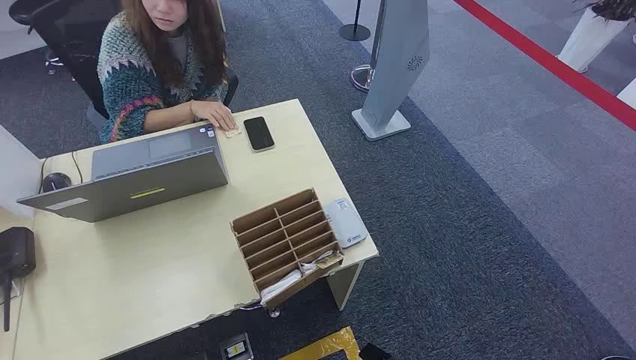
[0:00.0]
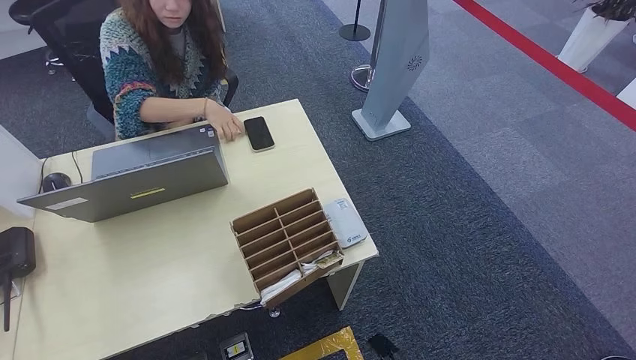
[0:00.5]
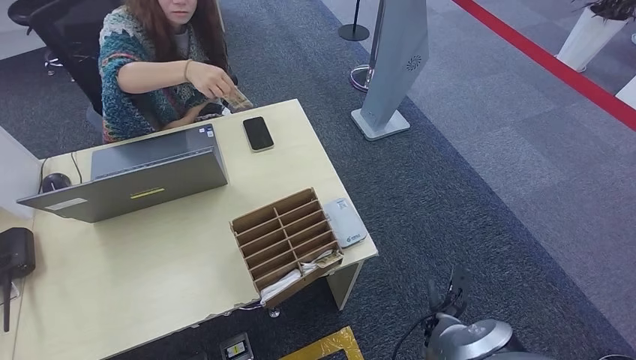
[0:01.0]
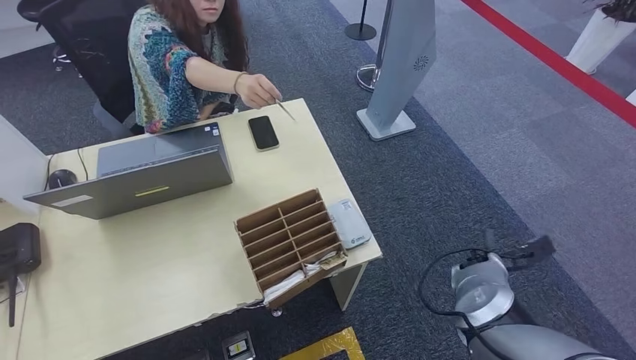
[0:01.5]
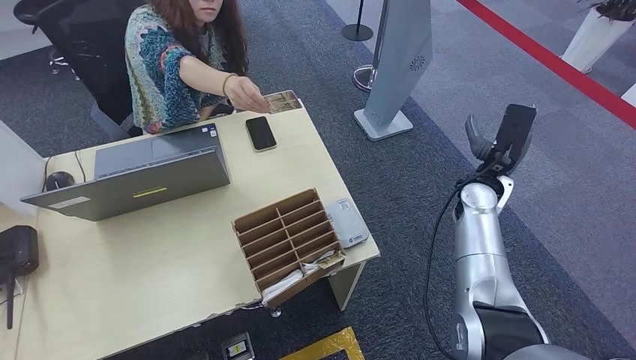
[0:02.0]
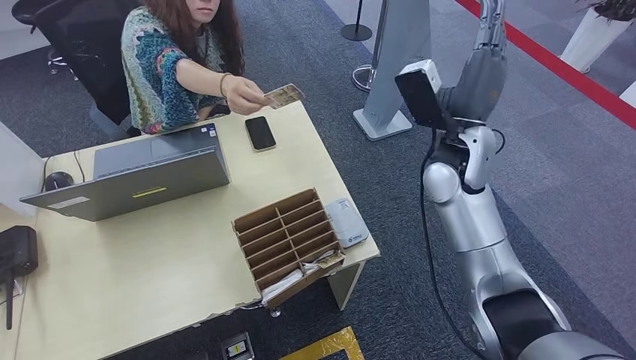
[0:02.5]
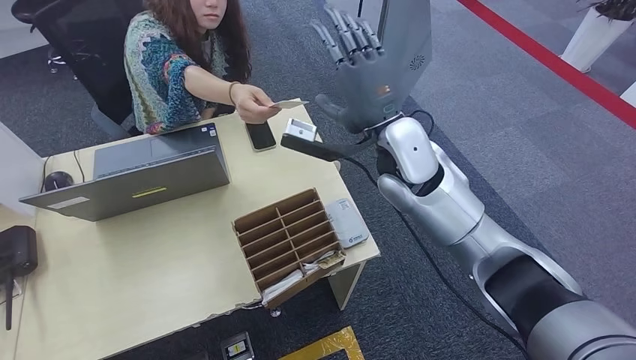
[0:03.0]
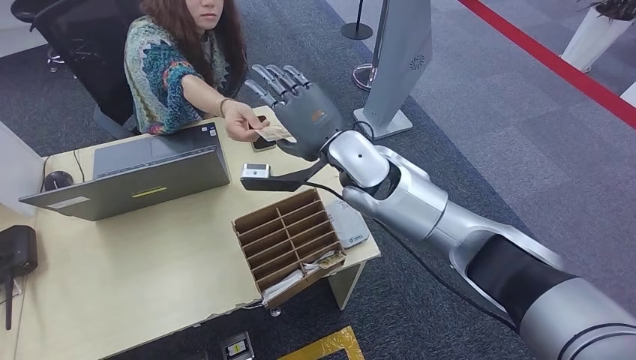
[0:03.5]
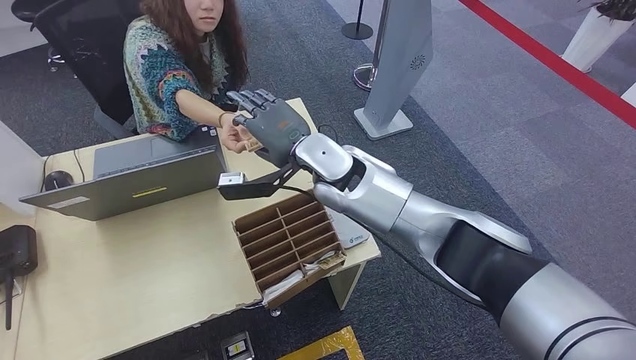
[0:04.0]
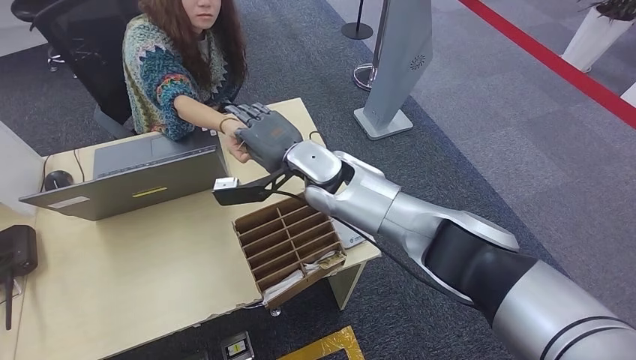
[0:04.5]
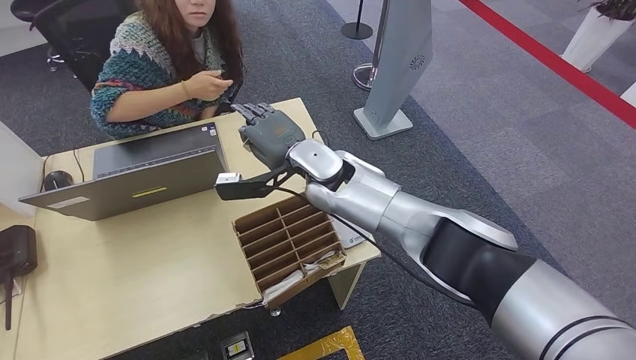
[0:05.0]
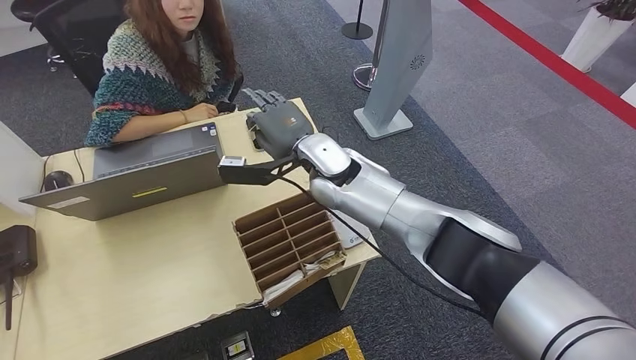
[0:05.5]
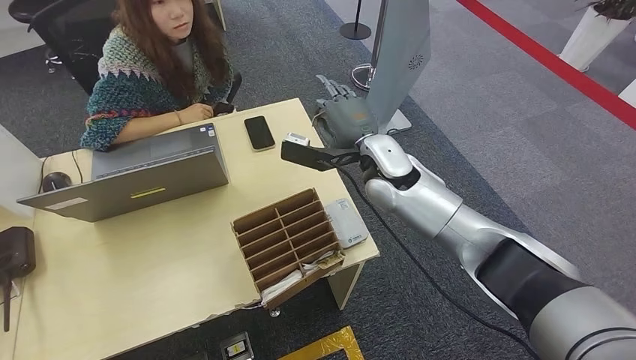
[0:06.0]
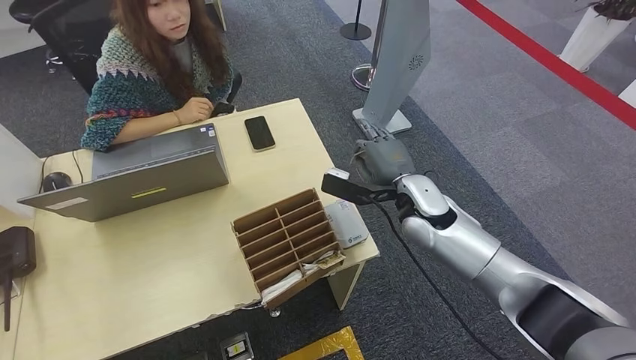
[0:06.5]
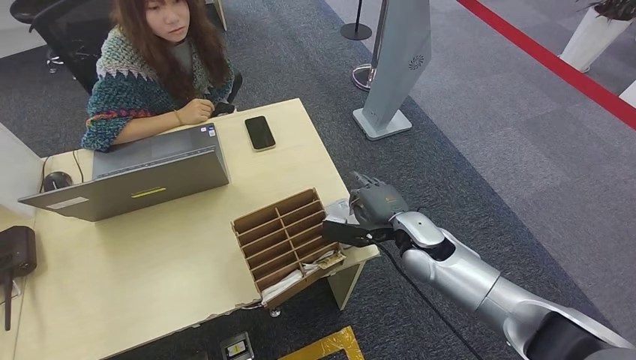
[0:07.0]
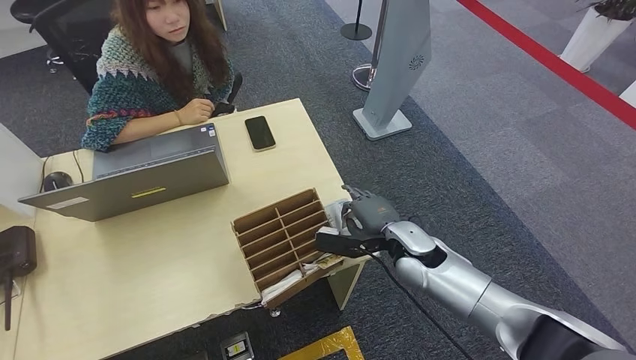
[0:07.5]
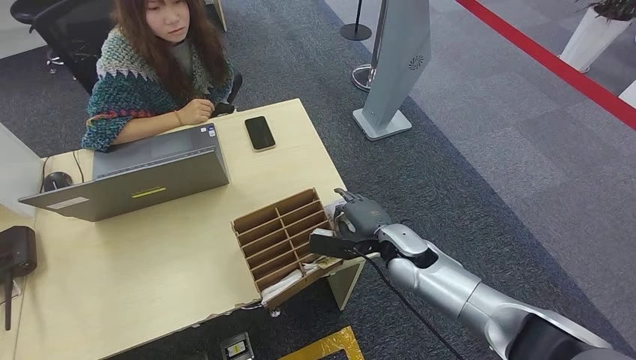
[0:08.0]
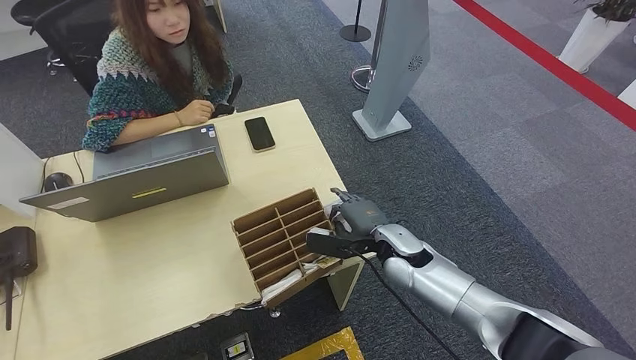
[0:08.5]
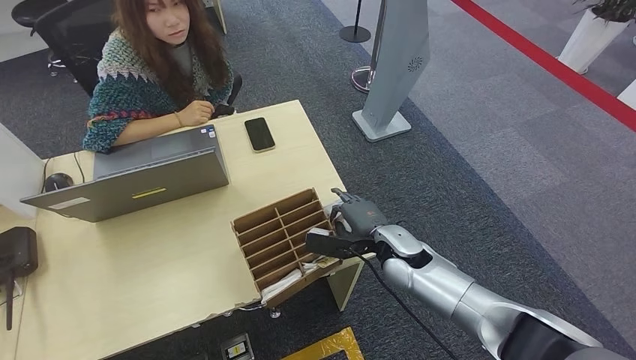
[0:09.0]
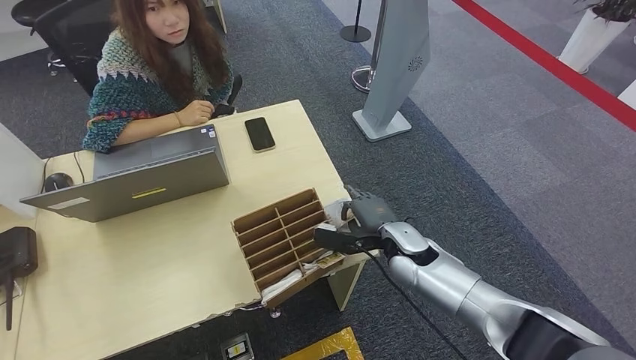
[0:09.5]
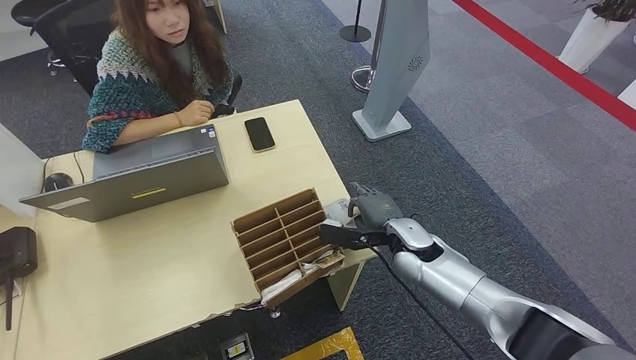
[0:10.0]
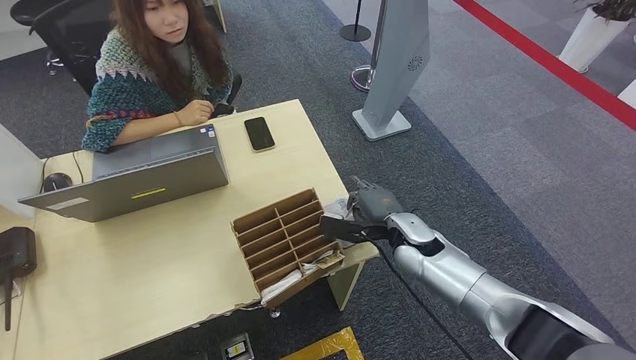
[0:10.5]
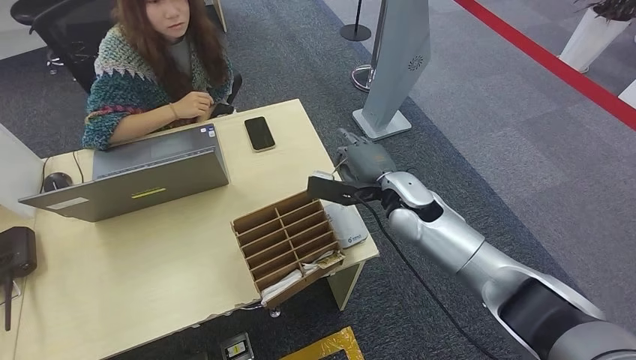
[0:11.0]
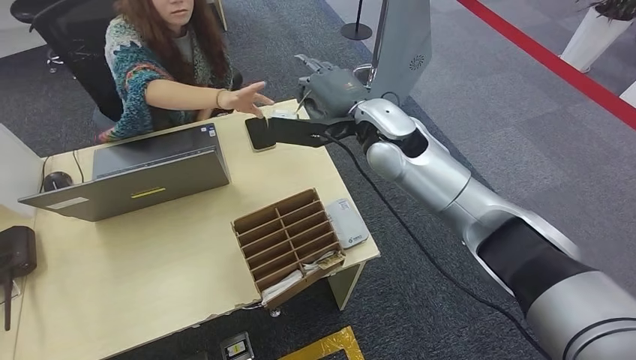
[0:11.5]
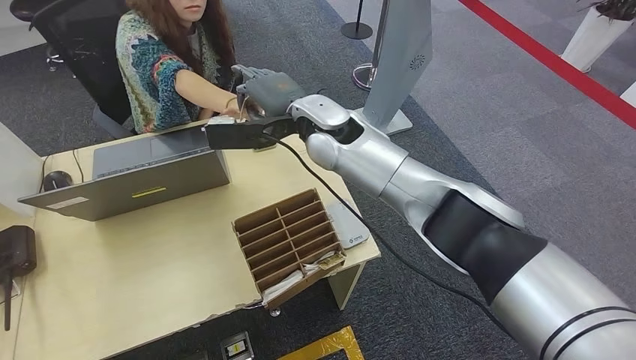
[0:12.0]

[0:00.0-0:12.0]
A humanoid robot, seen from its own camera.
Step, 0:00.0 to 0:05.5: Take the ID card from the person's hand.
Step, 0:06.0 to 0:09.5: Place the ID card on the card reader.
0:06.0 to 0:08.0: The right hand is displaced downward and backward by about 15 cm.
0:08.0 to 0:10.0: There are only small adjustments of the hands.

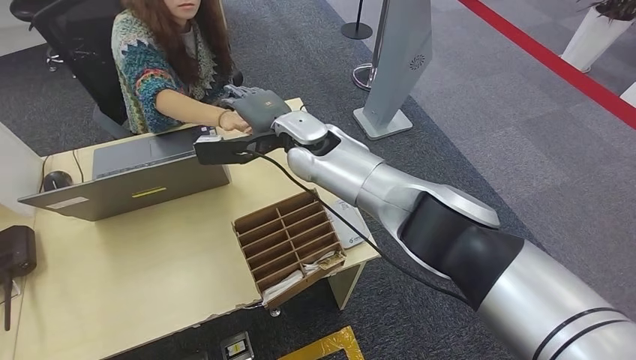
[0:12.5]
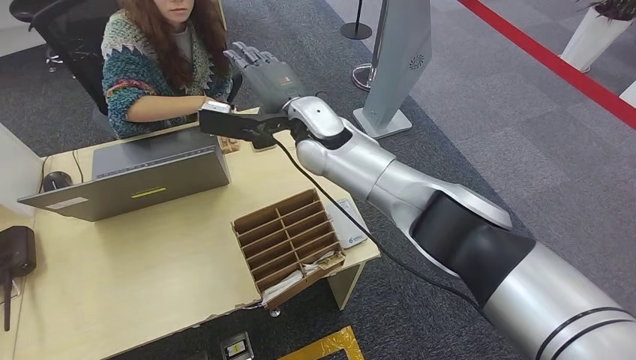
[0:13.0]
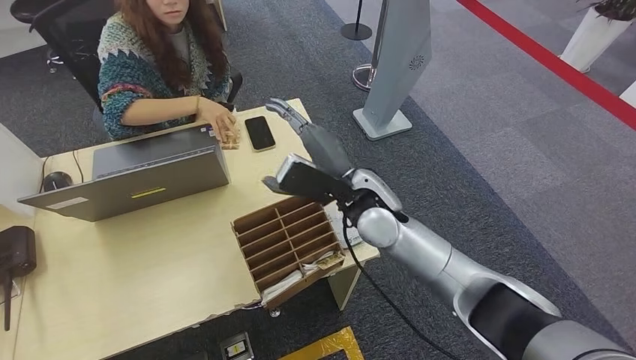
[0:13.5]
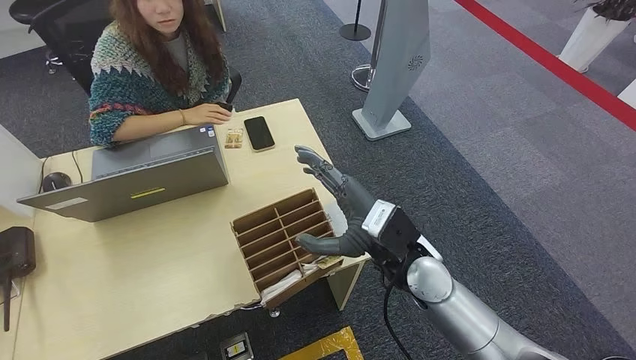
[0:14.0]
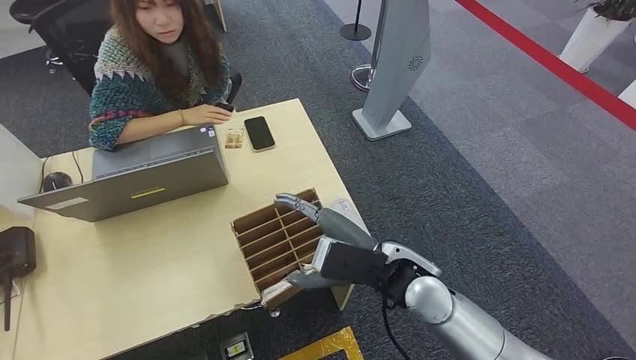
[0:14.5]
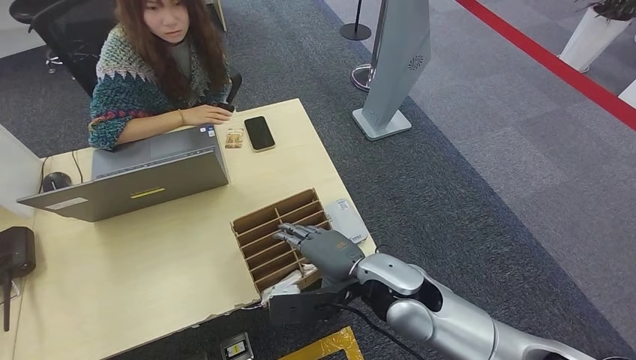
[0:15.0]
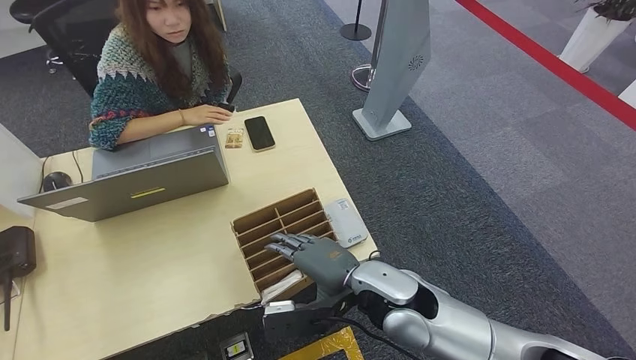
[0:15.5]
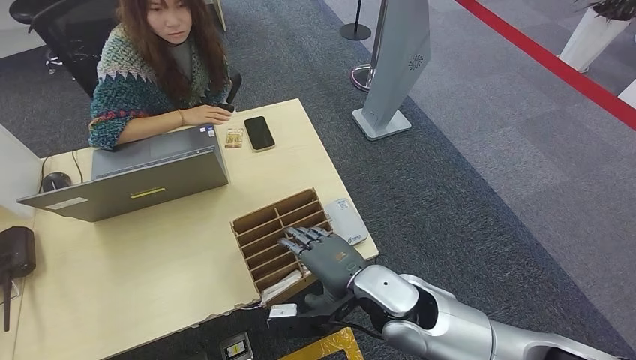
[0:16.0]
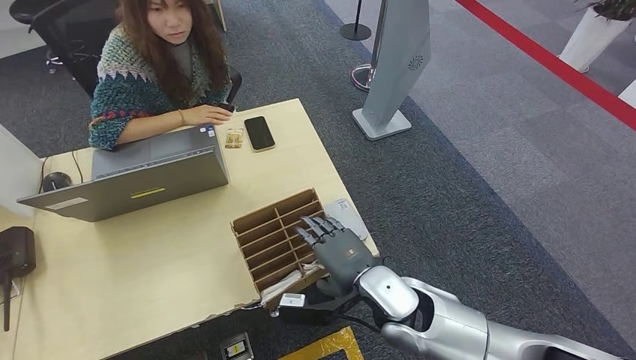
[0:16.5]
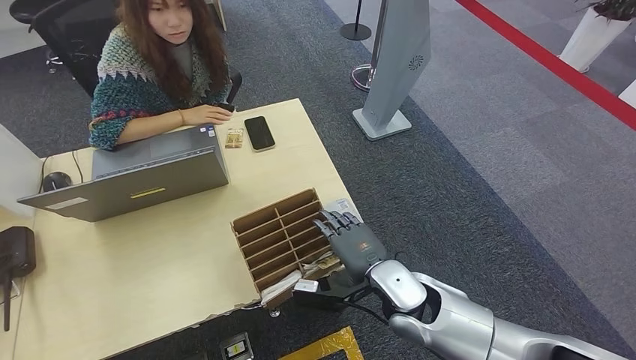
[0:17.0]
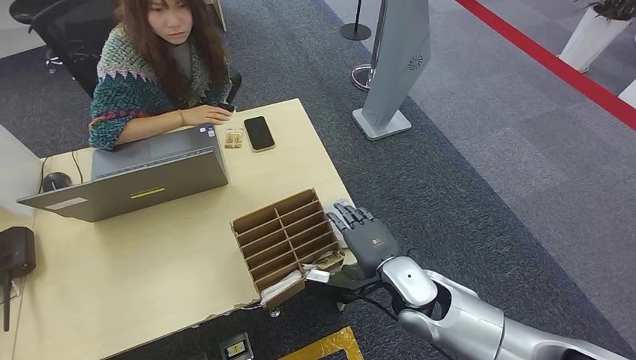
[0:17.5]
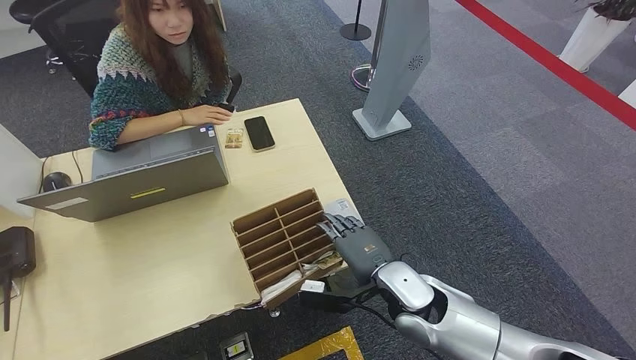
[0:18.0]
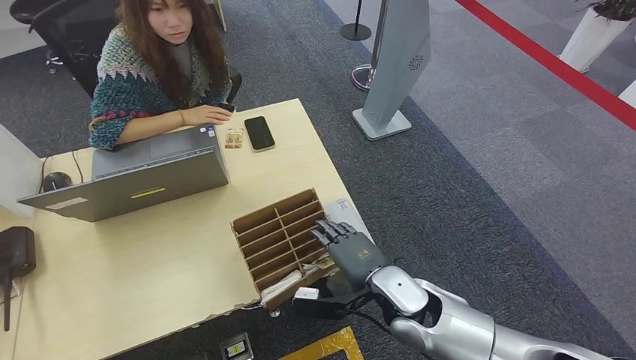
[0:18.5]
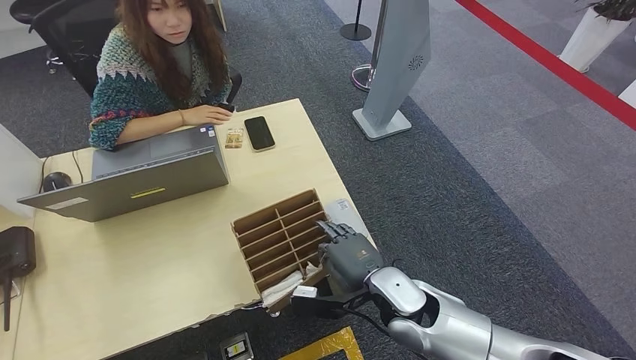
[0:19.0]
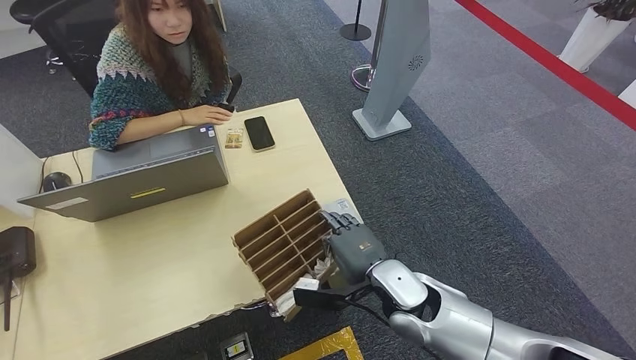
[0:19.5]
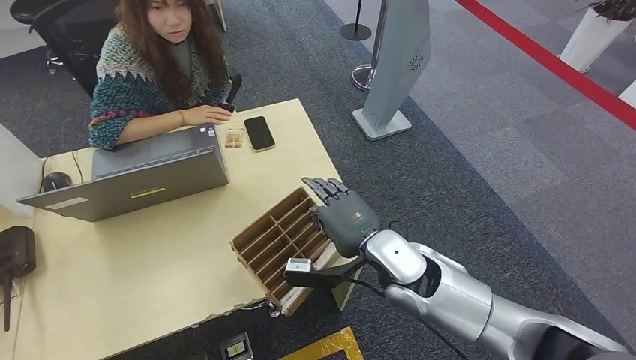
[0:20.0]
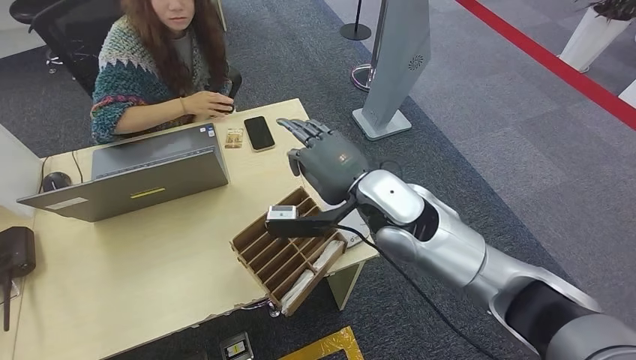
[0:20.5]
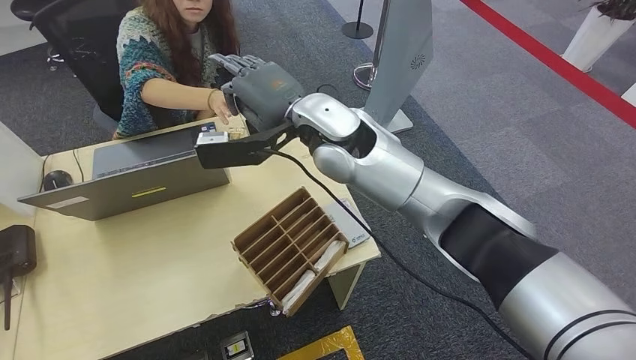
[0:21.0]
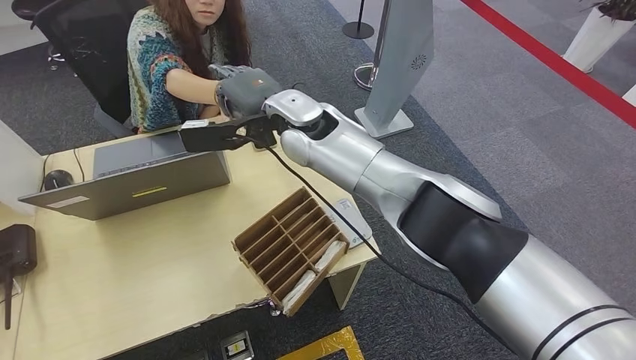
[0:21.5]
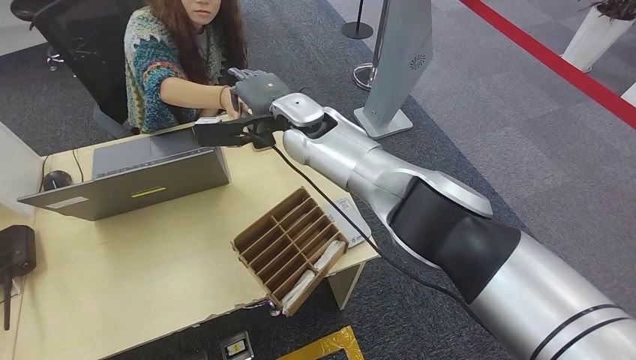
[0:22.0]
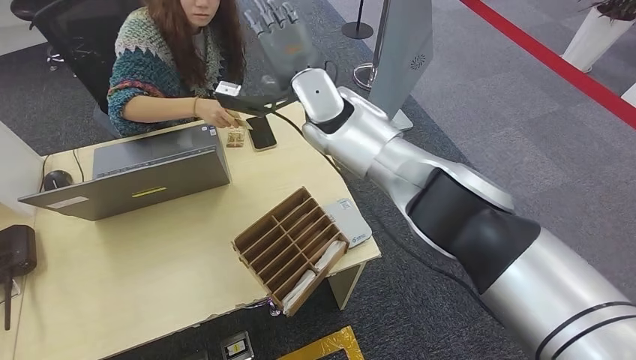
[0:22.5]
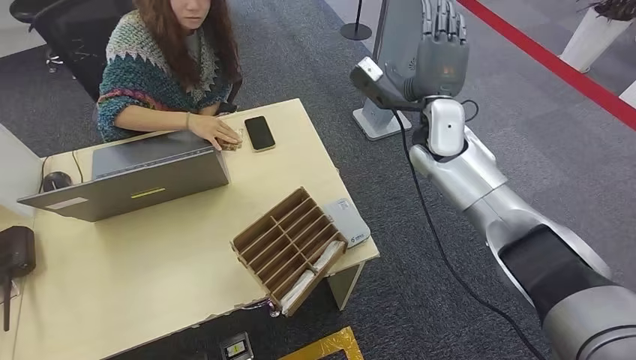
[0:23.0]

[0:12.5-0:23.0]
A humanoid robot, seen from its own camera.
Step, 0:13.5 to 0:19.5: Pick up the room key from the key card box.
Step, 0:20.0 to 0:22.5: Hand the room key to the person.
0:14.5 to 0:16.5: The right hand is displaced downward by some 5 cm.
0:16.5 to 0:19.0: The hands make only small movements.
